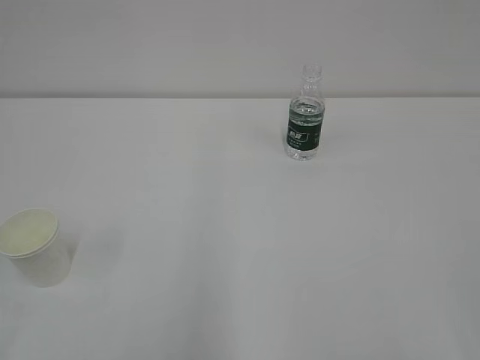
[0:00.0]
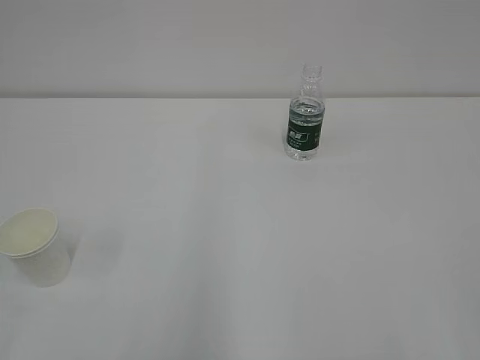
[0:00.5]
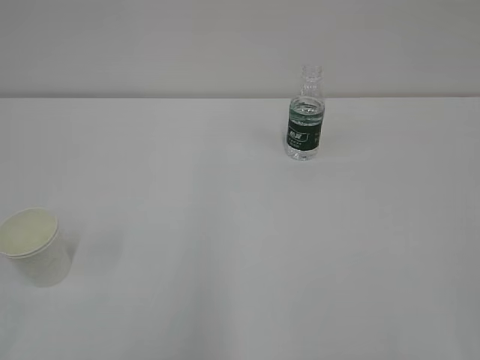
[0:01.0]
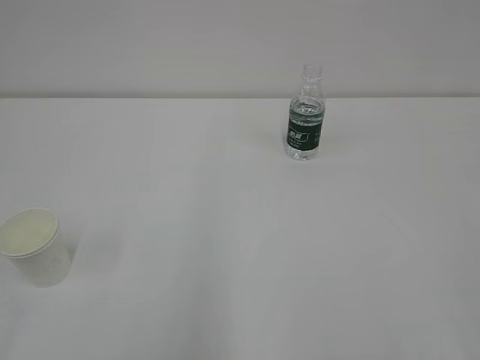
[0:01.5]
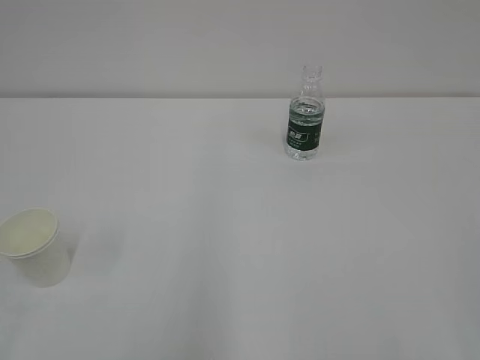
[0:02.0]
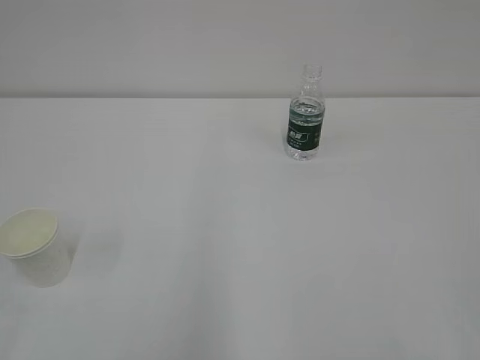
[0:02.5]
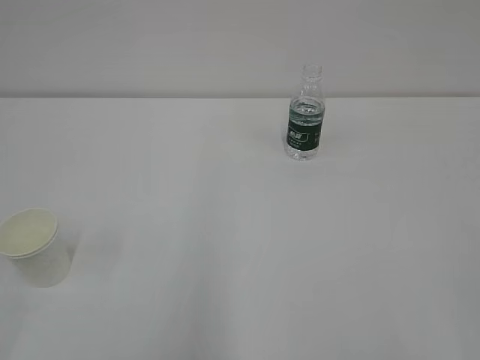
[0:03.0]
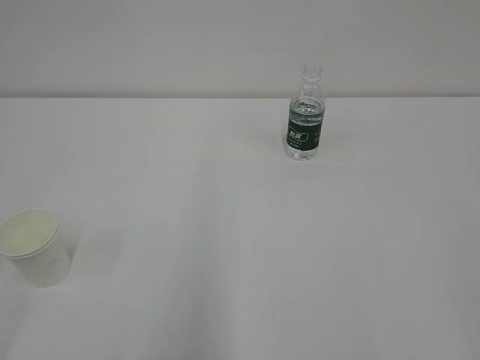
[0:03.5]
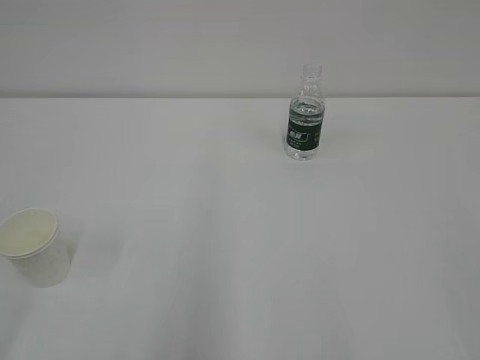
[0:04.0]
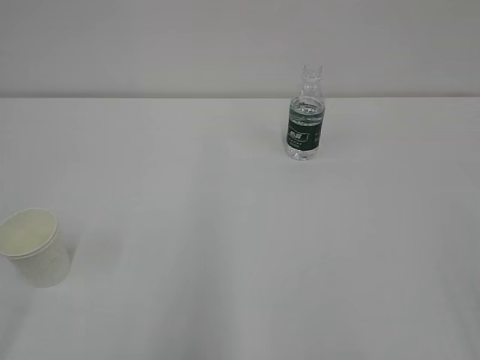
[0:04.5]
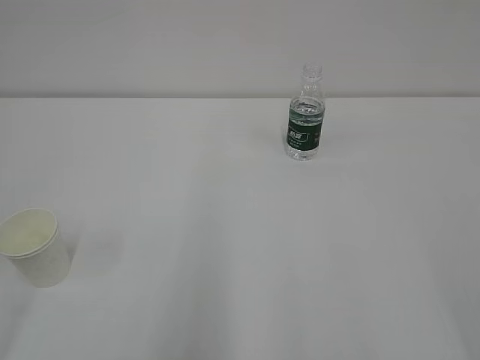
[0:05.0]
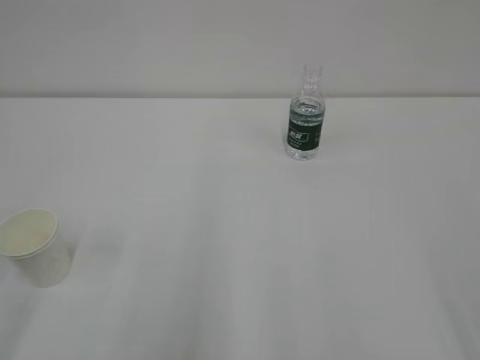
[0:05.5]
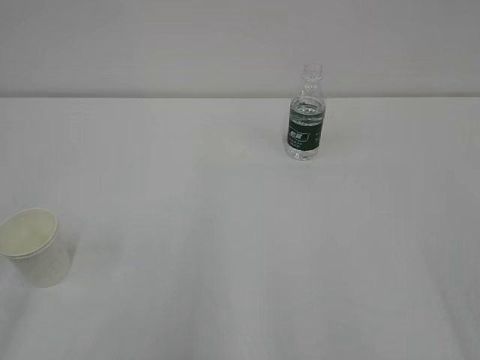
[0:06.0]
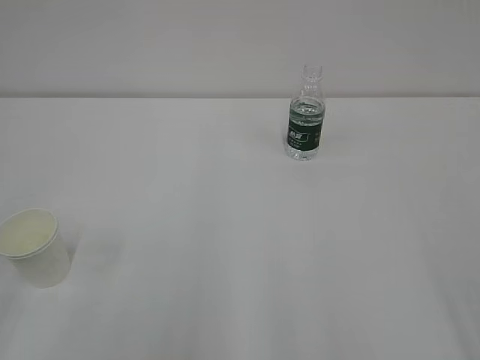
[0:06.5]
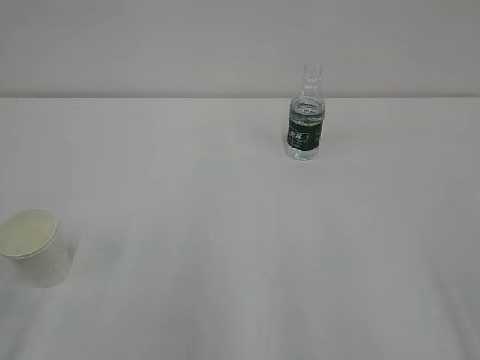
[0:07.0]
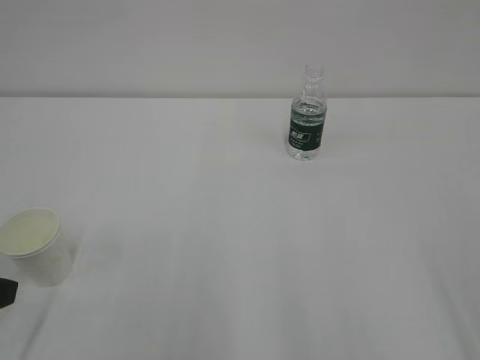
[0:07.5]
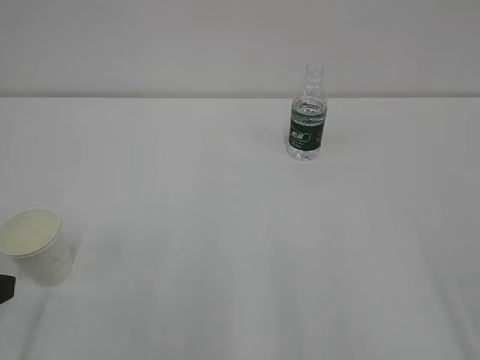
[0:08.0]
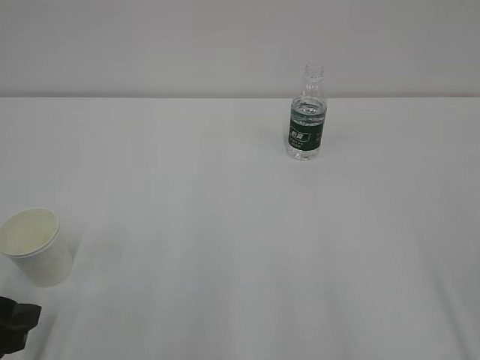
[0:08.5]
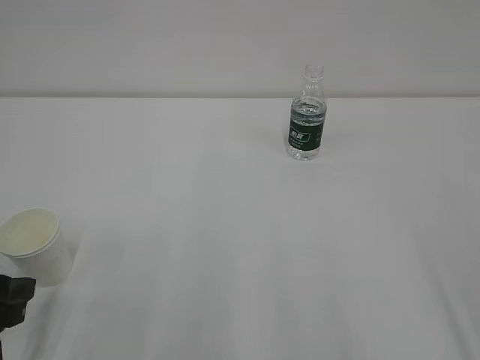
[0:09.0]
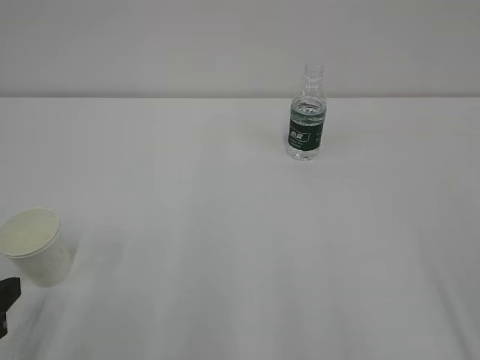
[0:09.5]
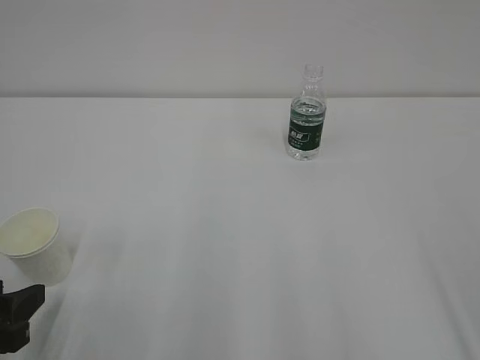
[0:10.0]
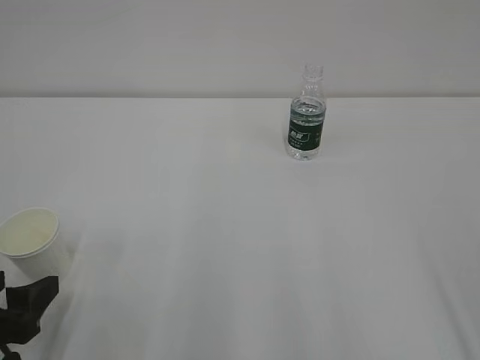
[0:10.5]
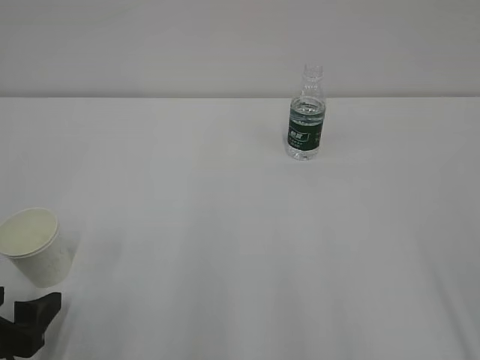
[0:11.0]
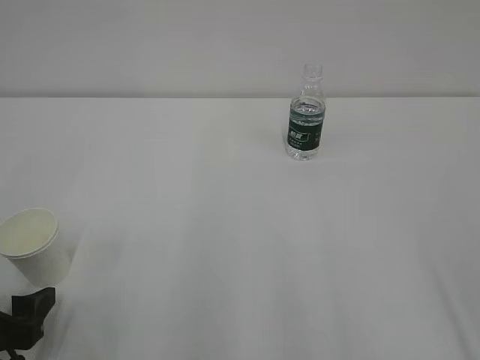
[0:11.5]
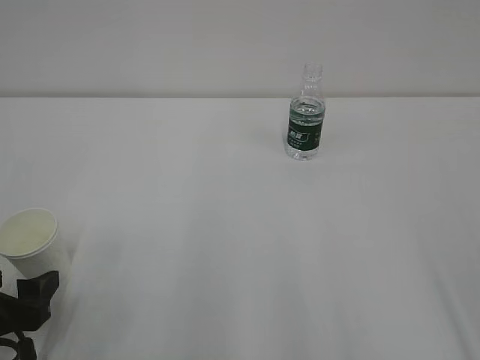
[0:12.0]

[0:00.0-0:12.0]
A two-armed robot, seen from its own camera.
0:08.0 to 0:10.0: The left gripper travels downward by roughly 5 cm.
0:10.0 to 0:12.0: There are only small adjustments of the grippers.

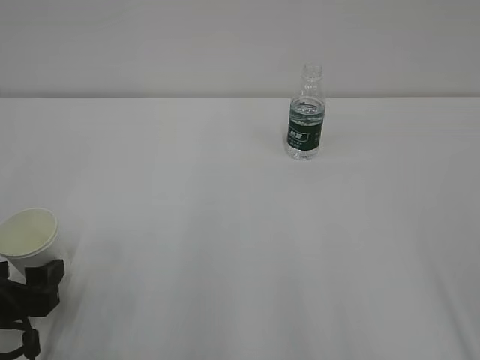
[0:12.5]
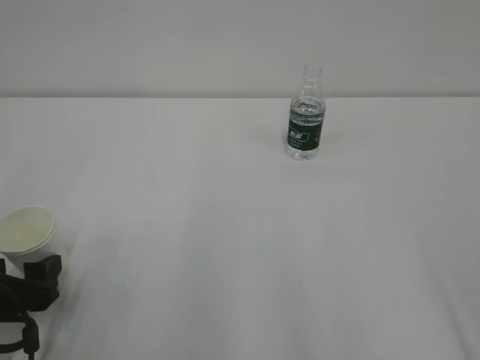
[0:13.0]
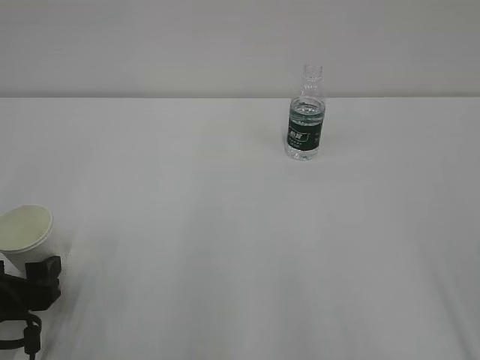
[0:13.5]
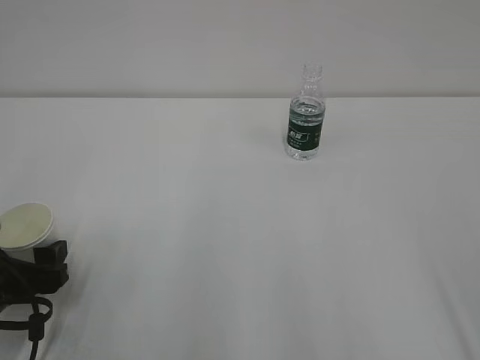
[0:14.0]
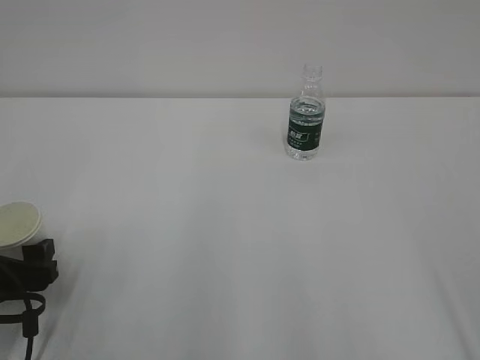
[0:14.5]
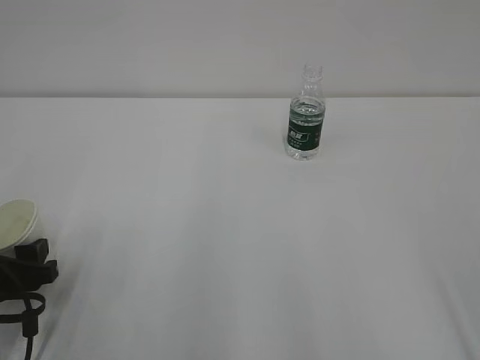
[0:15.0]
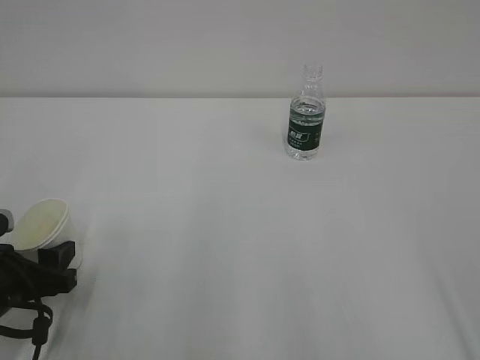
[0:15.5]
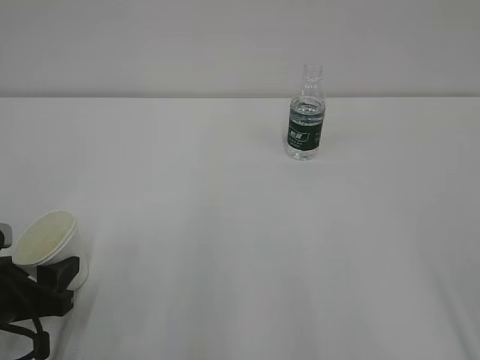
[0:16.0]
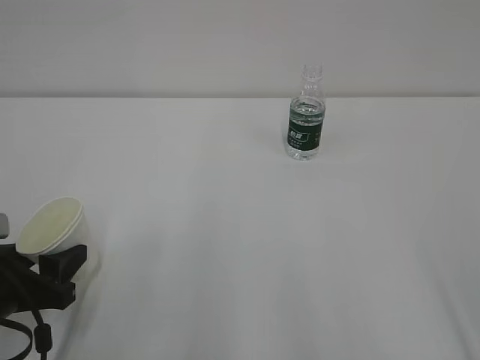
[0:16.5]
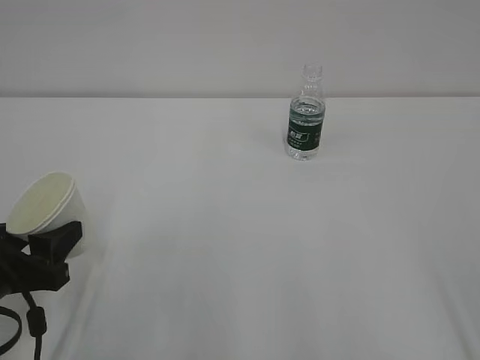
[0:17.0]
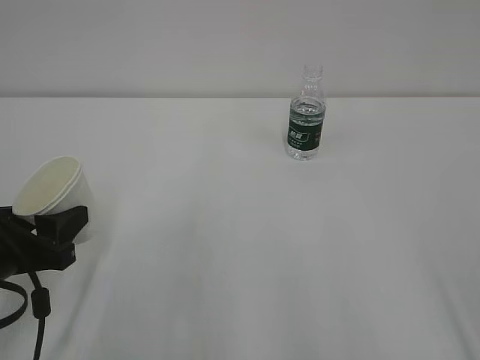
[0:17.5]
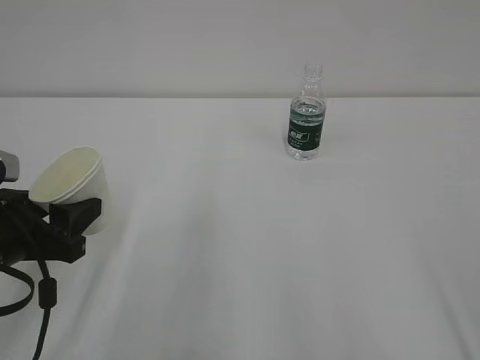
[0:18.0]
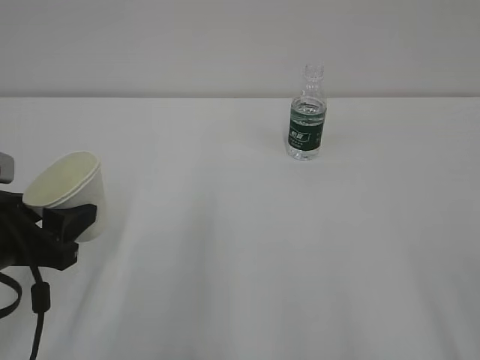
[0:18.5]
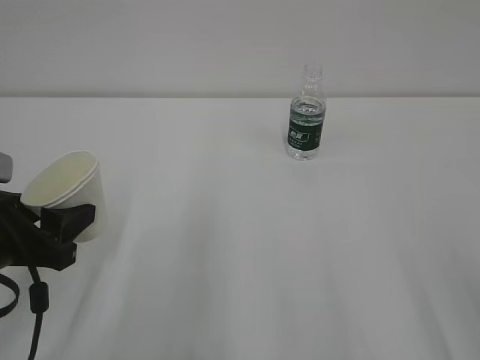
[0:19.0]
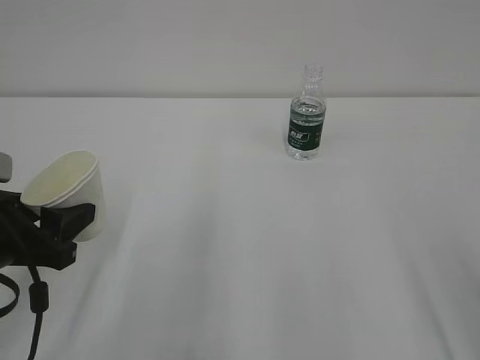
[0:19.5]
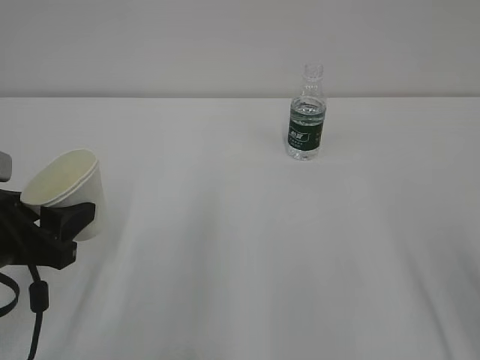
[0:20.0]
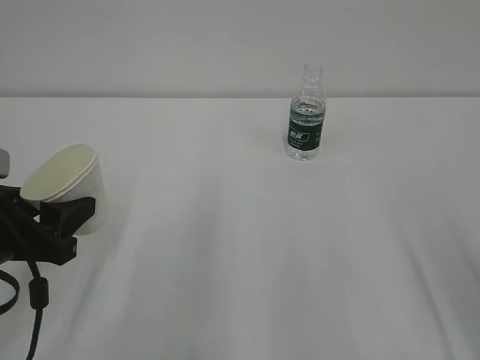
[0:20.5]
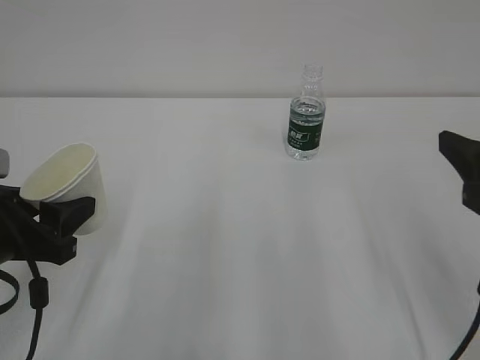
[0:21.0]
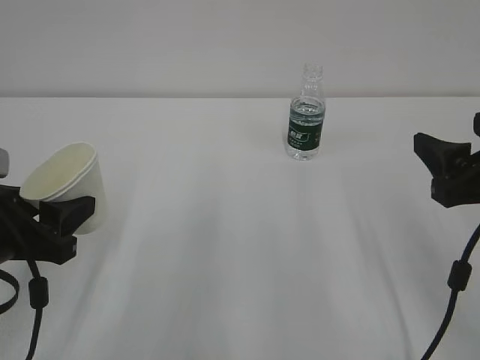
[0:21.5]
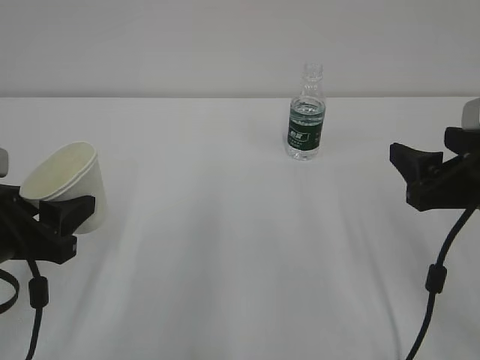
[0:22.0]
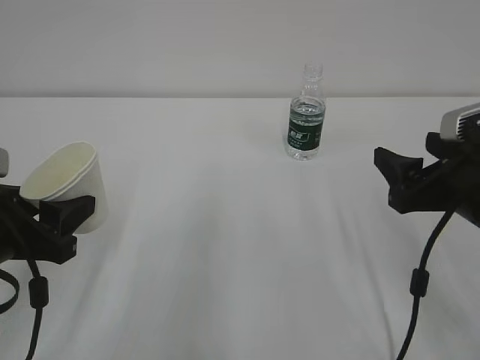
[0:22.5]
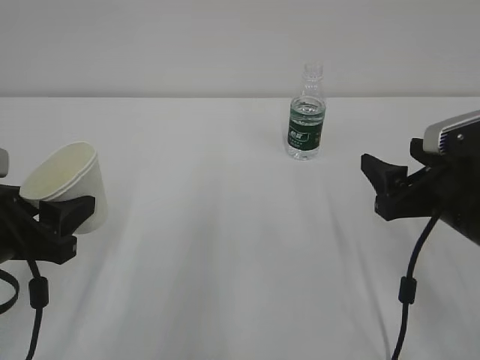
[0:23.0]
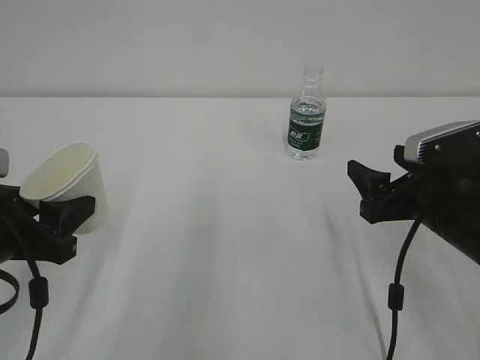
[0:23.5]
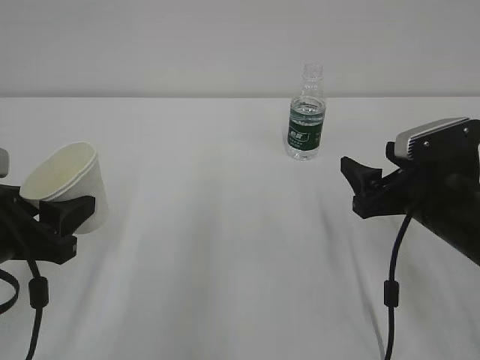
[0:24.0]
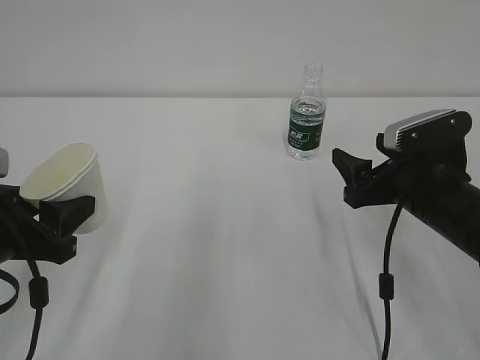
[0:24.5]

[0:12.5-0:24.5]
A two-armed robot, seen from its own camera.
0:12.5 to 0:14.5: There are only small adjustments of the grippers.
0:16.5 to 0:18.5: The left gripper shifts roughly 5 cm upward.
0:20.5 to 0:22.5: The right gripper goes roughly 15 cm forward, downward and to the left.
0:22.5 to 0:24.5: The right gripper is displaced forward by about 5 cm.

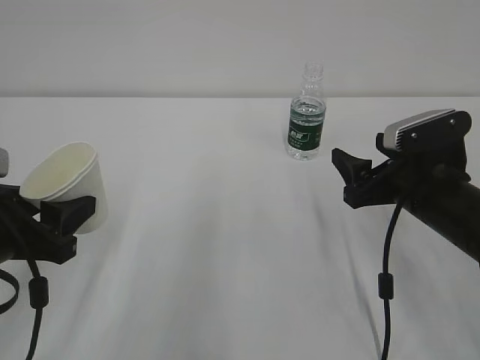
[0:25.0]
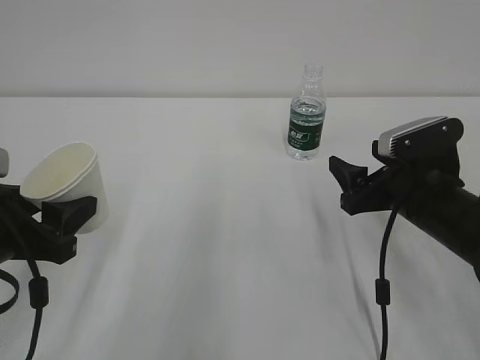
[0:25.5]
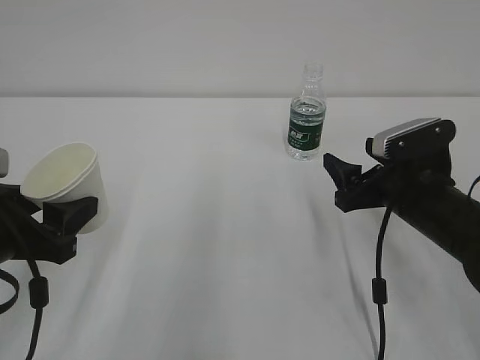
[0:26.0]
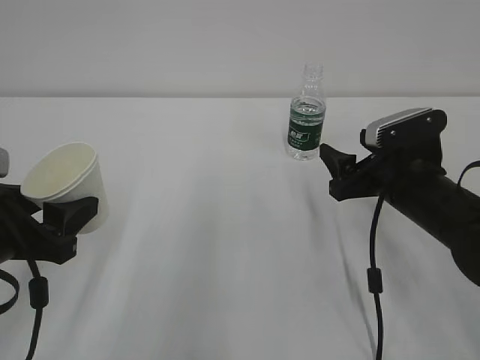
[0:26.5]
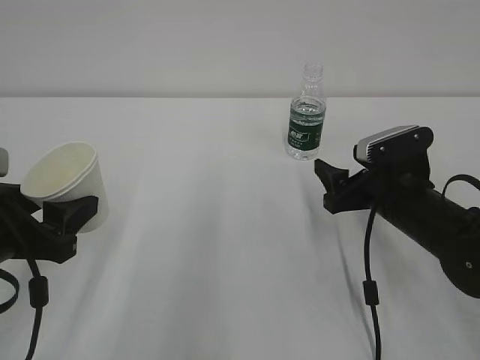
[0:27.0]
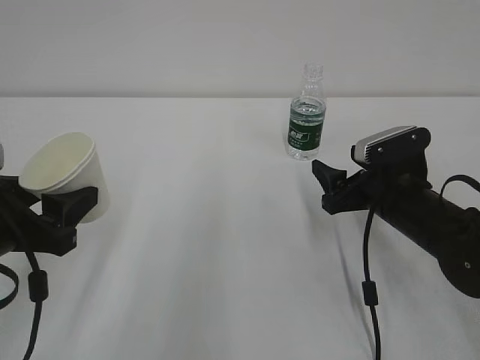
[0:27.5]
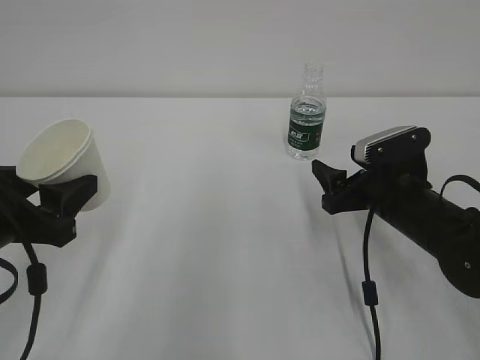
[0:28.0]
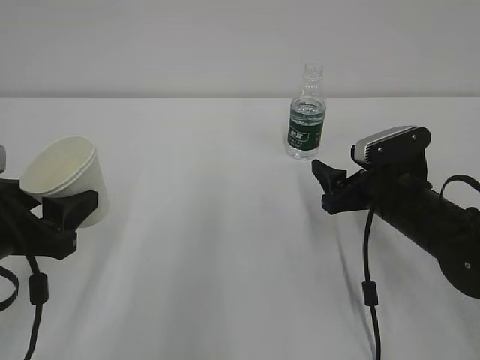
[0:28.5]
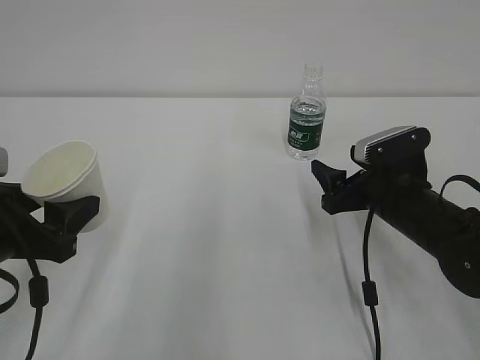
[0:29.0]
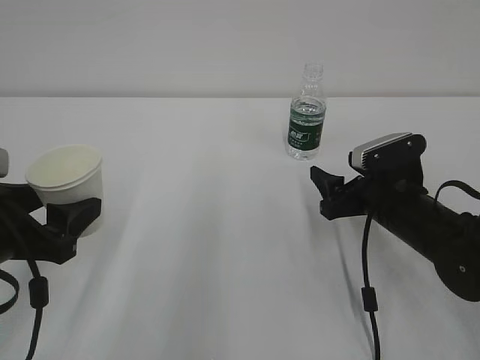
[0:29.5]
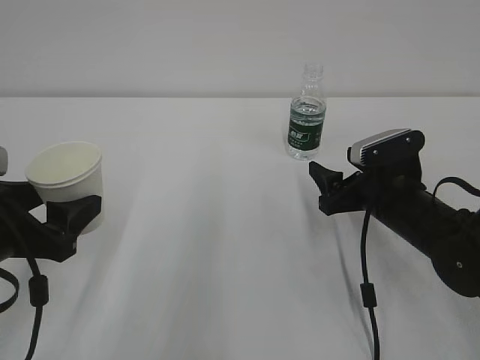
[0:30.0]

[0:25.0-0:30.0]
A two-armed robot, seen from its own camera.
0:25.0 to 0:27.5: The right gripper moves about 5 cm.
0:27.5 to 0:30.0: Both grippers stay about where they are.
